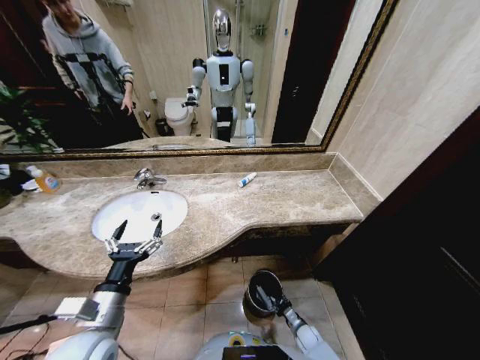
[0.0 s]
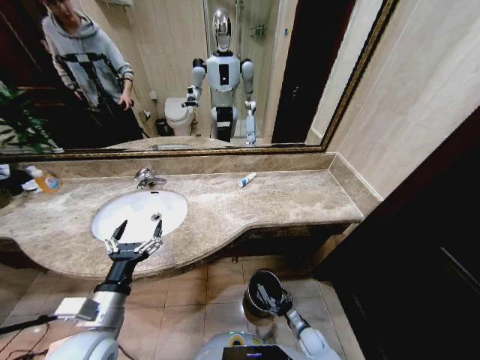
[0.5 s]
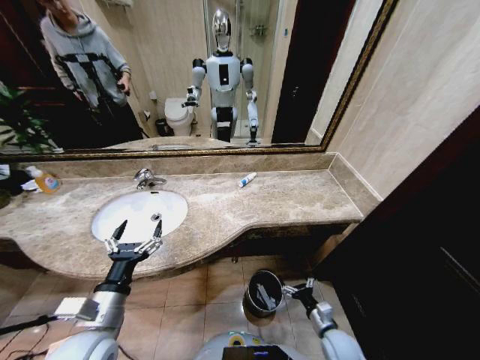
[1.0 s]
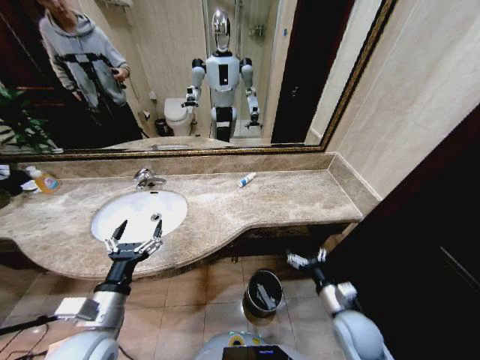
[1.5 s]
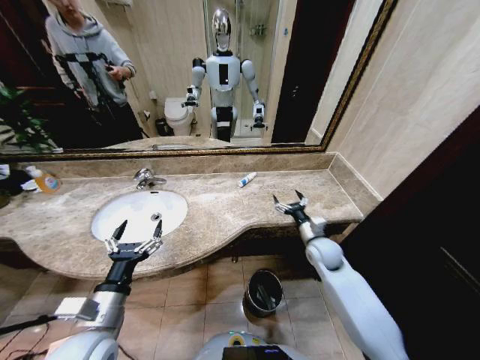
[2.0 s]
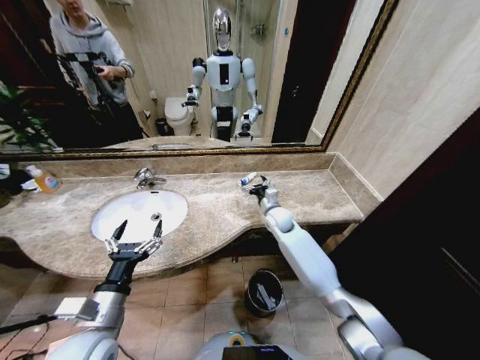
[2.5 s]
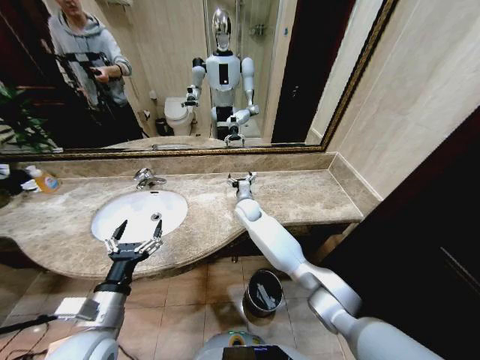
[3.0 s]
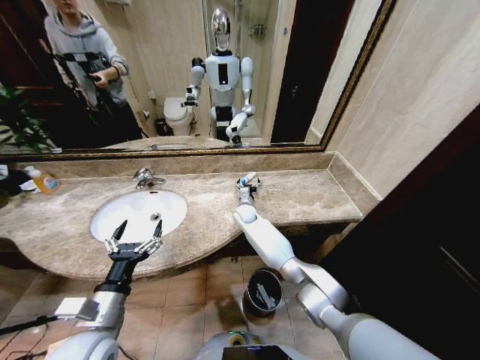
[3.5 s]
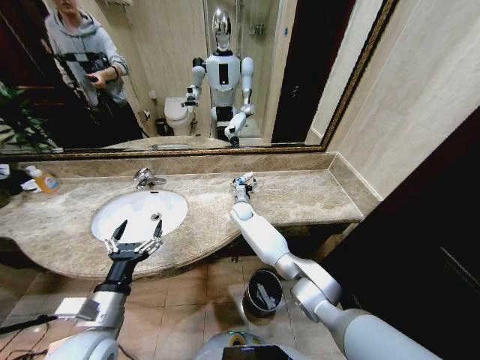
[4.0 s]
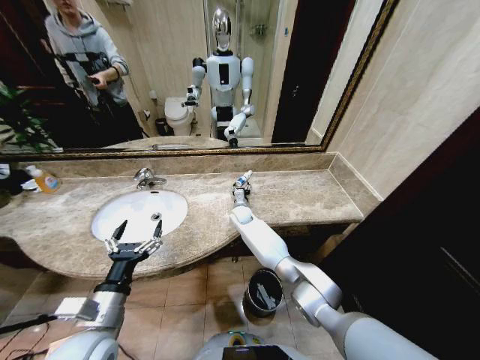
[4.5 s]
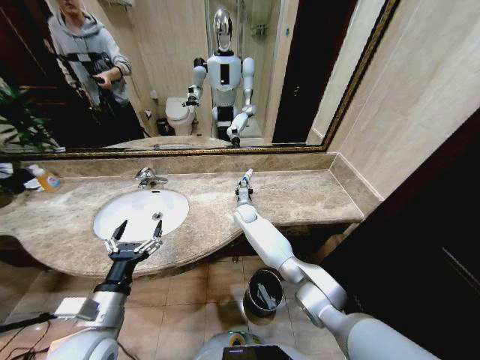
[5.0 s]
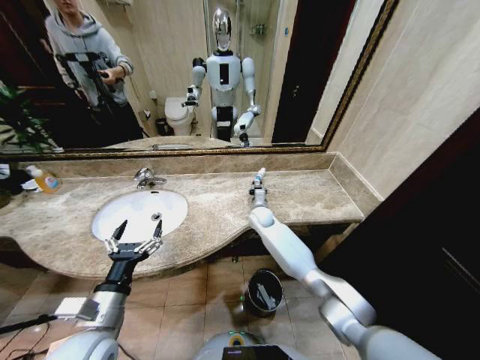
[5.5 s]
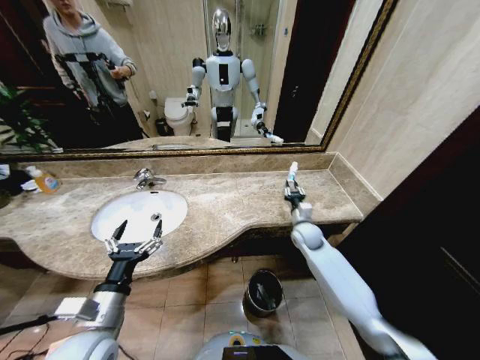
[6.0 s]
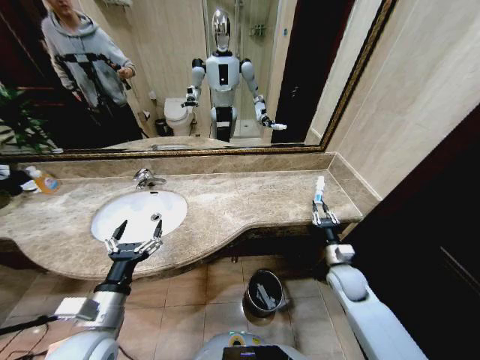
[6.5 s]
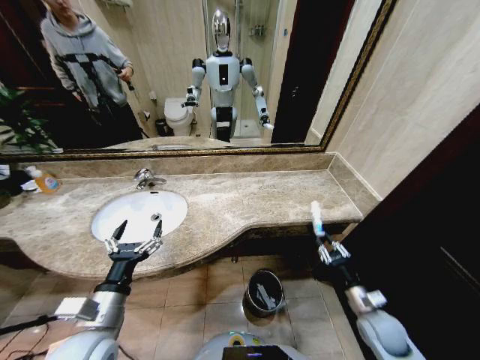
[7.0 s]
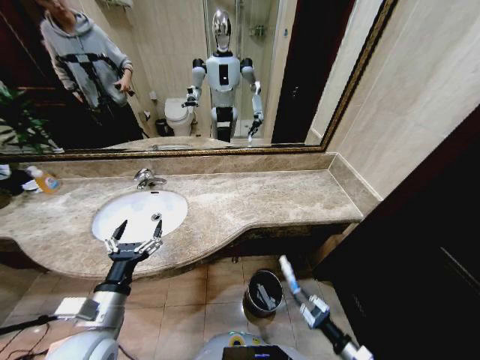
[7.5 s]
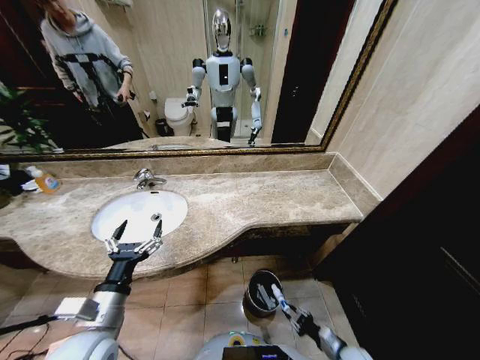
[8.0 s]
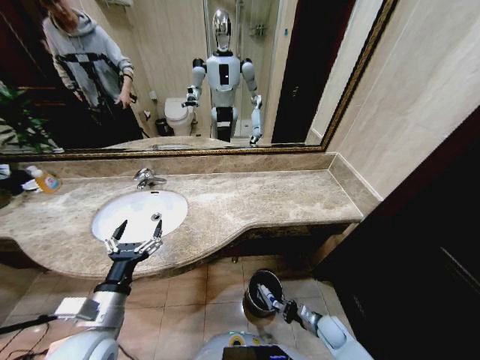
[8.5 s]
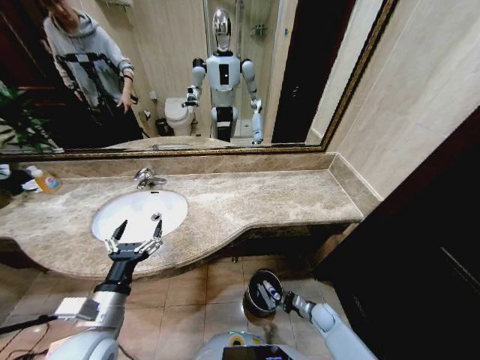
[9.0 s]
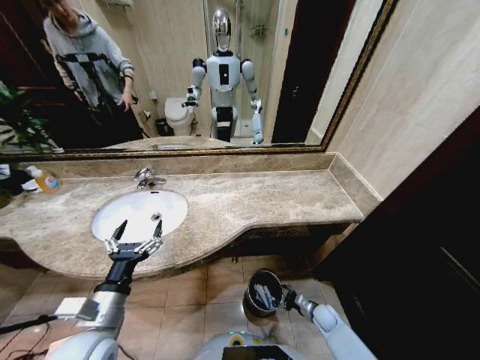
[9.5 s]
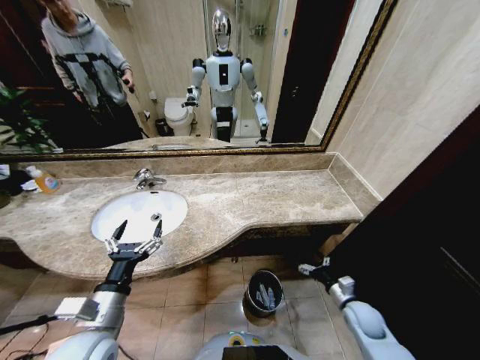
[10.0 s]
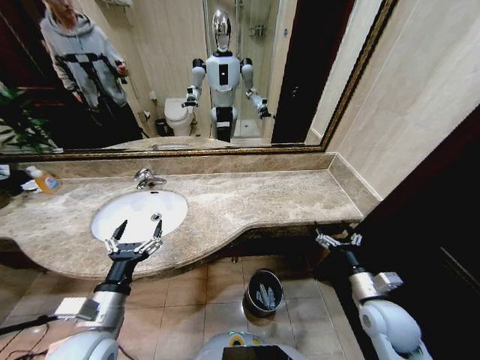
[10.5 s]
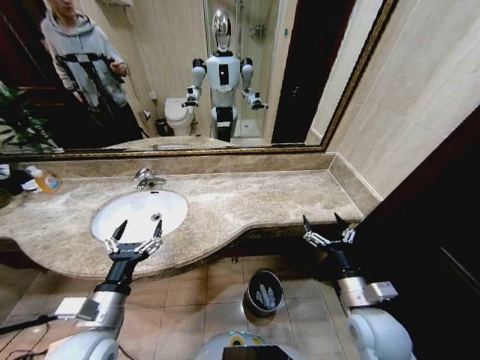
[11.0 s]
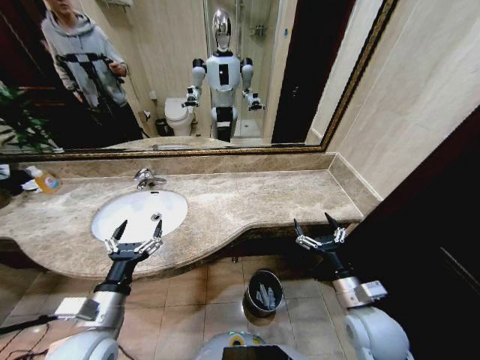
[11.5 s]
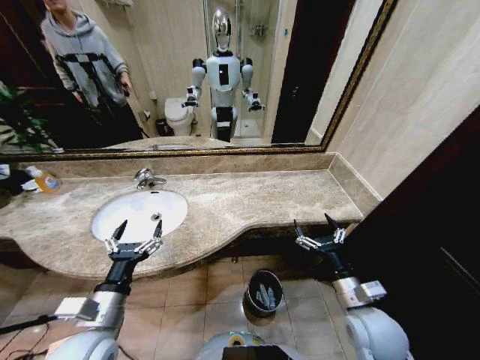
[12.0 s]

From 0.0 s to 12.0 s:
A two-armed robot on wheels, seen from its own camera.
Task of the whole recording: Pick up the trash from the sink and place it in the trash bin.
From 0.0 s to 2.0 s: The right gripper heads upward and forward, covering about 40 cm, and opens up.
From 2.0 s to 4.0 s: The right gripper is displaced to the left and forward by some 30 cm.
From 4.0 s to 6.0 s: The right gripper shifts approximately 25 cm to the right and backward, and closes its fingers.
From 6.0 s to 8.0 s: The right gripper moves backward and downward, some 35 cm.
From 8.0 s to 10.0 s: The right gripper shifts approximately 10 cm forward and upward, and opens its fingers.
From 10.0 s to 12.0 s: The right gripper heads upward and to the left, covering approximately 20 cm.
